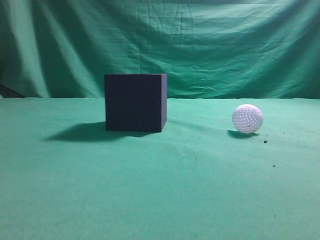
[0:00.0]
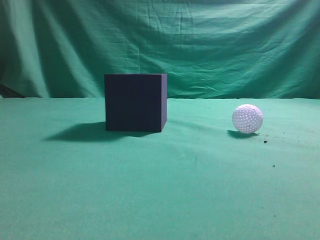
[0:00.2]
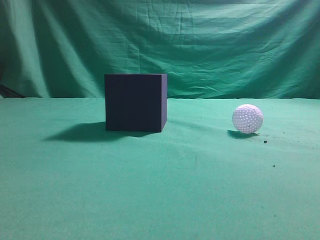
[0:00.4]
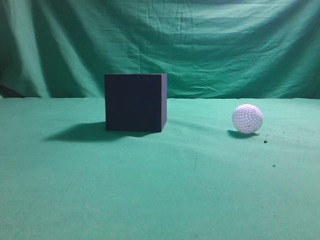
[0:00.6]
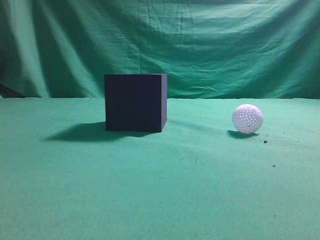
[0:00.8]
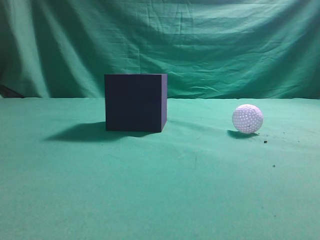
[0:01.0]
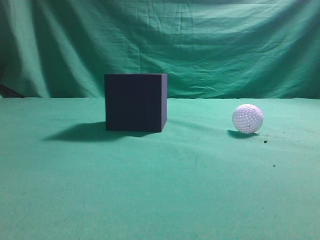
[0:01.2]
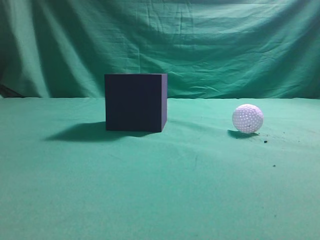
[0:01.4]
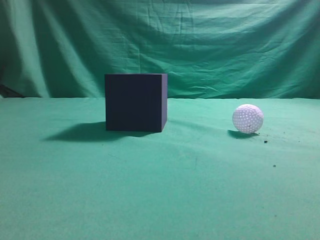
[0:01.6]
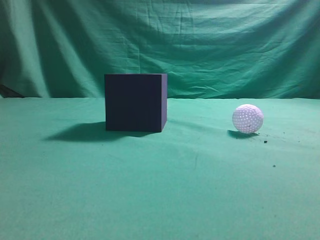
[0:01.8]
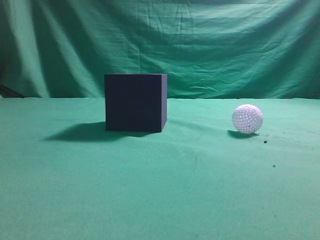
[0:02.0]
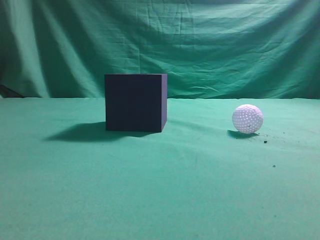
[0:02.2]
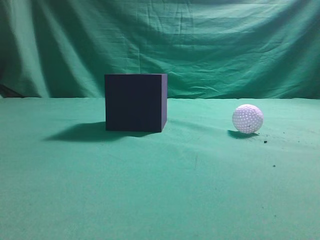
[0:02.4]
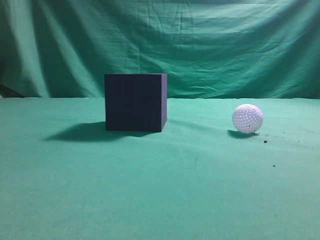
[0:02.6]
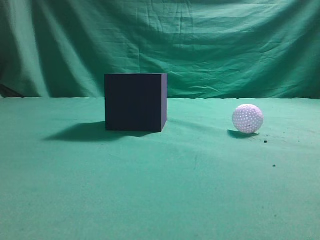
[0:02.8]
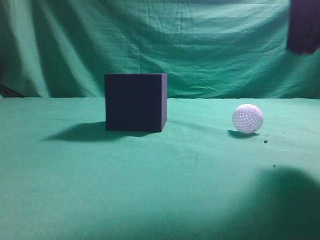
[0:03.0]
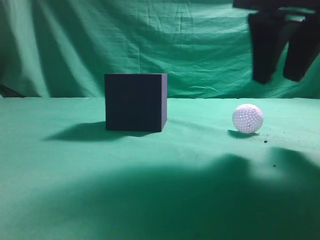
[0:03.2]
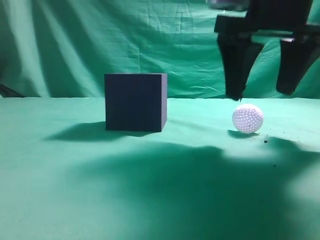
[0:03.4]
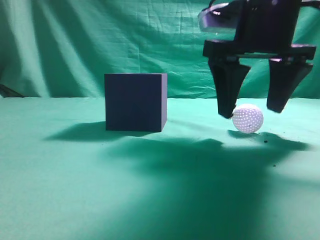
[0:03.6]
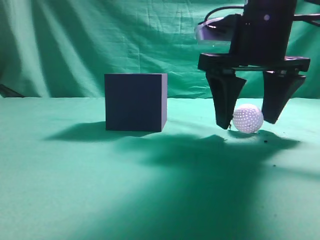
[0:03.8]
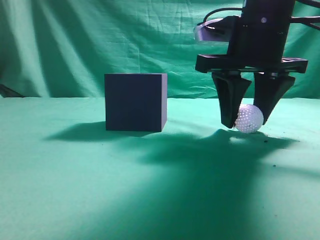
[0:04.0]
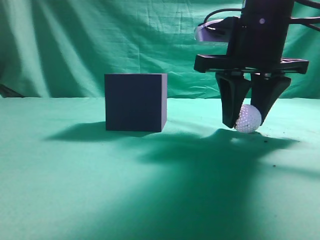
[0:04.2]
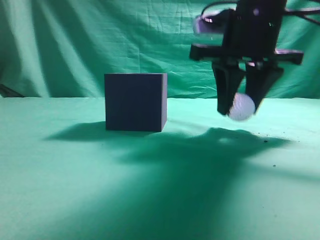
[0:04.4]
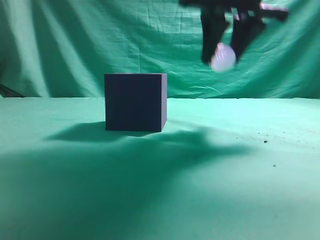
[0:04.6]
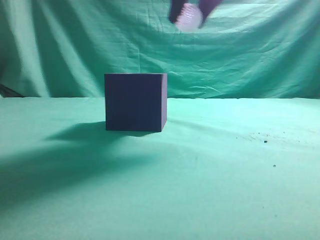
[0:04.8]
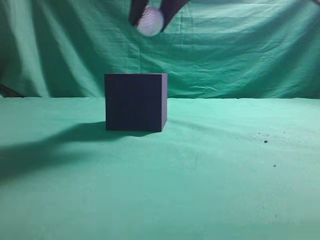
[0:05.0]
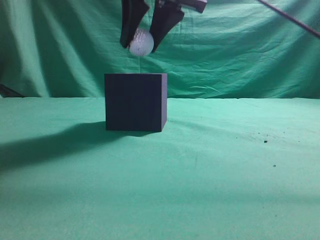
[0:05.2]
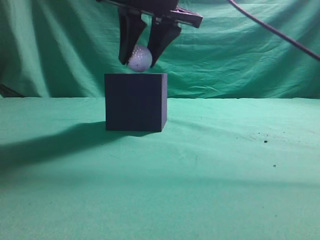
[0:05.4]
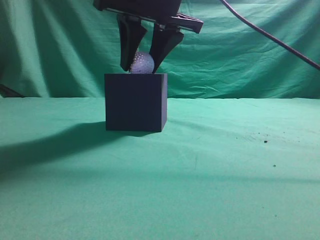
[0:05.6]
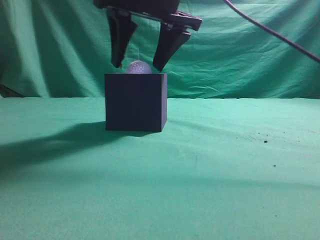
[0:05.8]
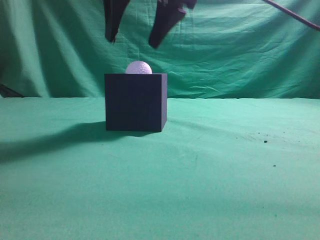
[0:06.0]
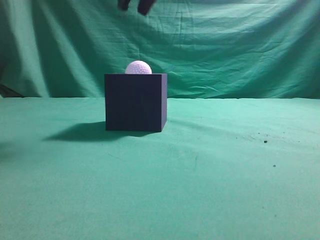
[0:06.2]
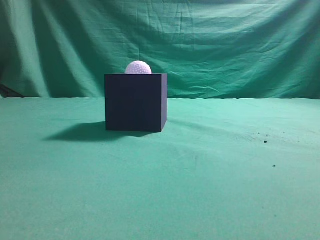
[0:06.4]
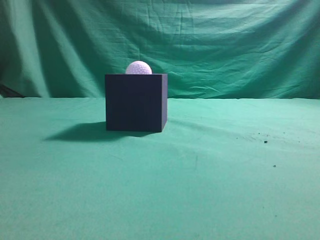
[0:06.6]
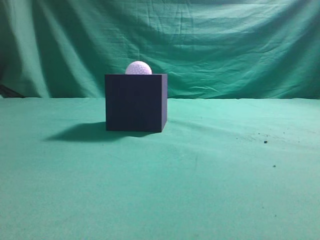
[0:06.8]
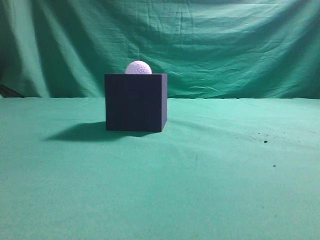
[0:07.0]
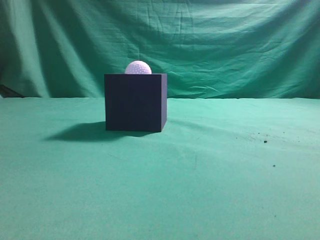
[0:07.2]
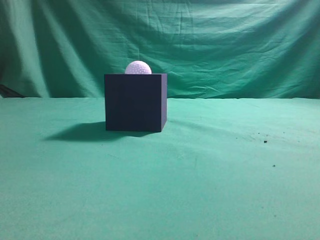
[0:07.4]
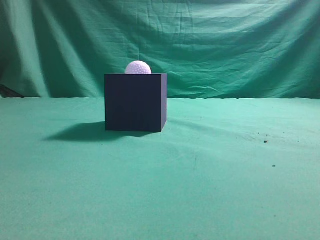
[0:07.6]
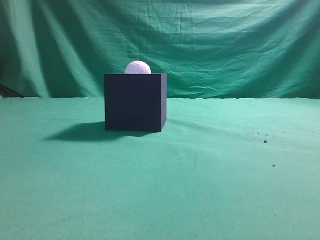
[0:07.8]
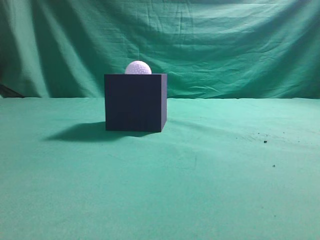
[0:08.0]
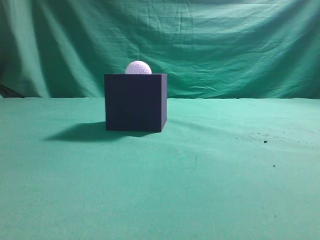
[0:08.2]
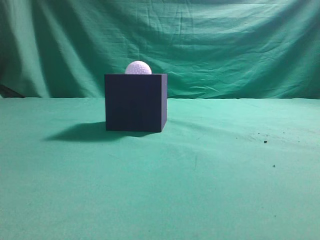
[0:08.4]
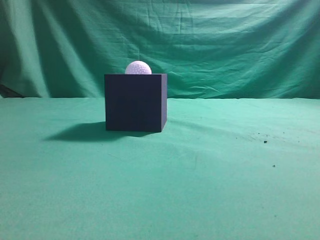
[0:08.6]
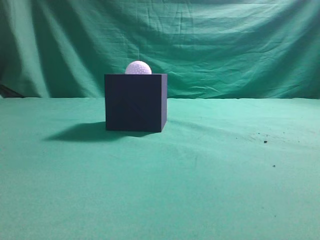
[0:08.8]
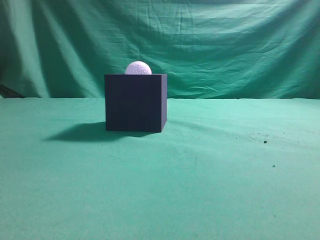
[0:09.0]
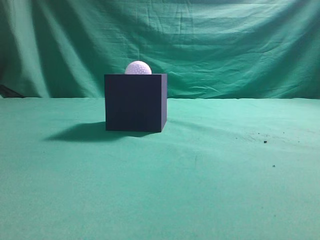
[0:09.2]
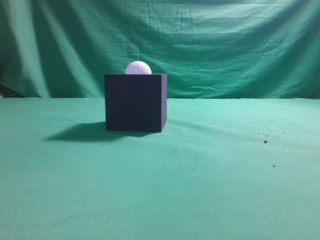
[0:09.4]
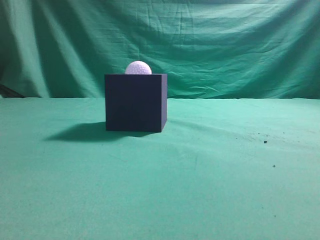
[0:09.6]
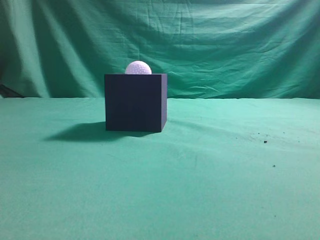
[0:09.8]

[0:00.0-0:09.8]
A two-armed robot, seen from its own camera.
Task of the whole recording: Pick up the ball and place it in the circular groove above the cube.
Step, 0:00.0 to 0:04.4: Grasp the sphere on the table.
Step, 0:04.6 to 0:05.8: Place the sphere into the sphere-shaped recess.
0:02.8 to 0:04.2: The right gripper travels forward, downward and to the left by some 20 cm, and opens up.
0:04.2 to 0:05.6: The right gripper moves to the left and upward, roughly 15 cm.
0:05.6 to 0:07.0: The right gripper shifts about 25 cm upward, backward and to the right, and closes up.
